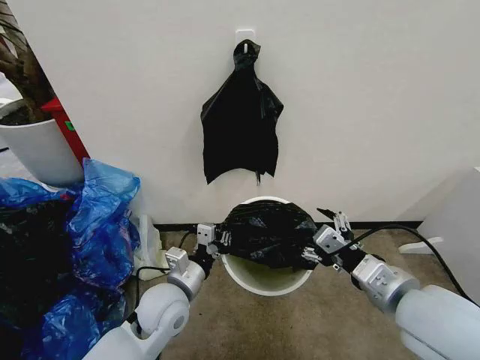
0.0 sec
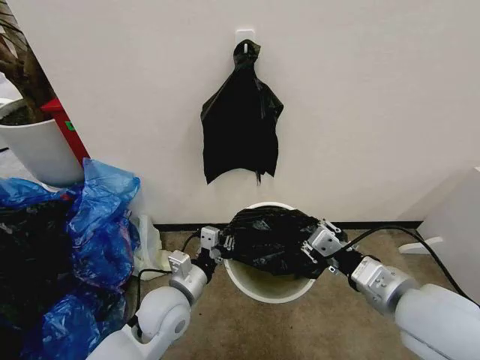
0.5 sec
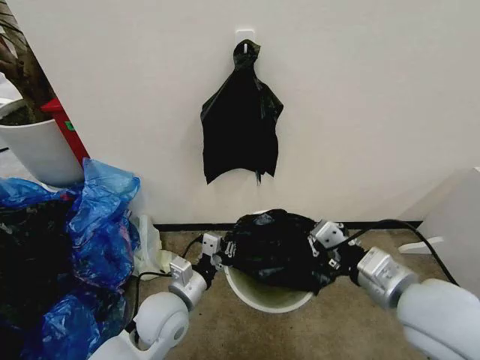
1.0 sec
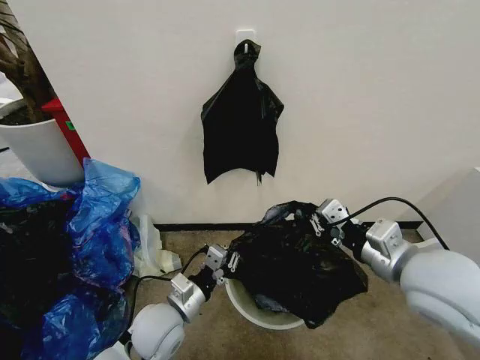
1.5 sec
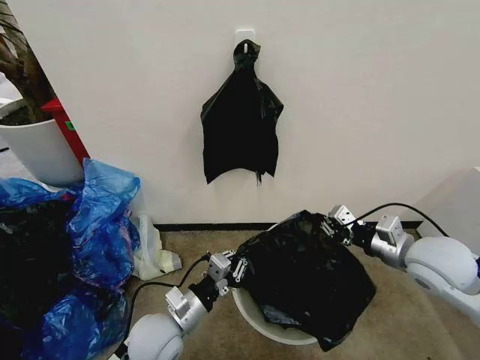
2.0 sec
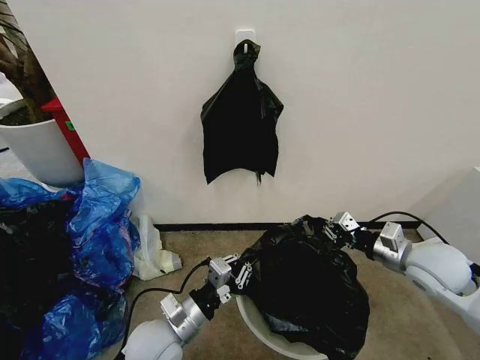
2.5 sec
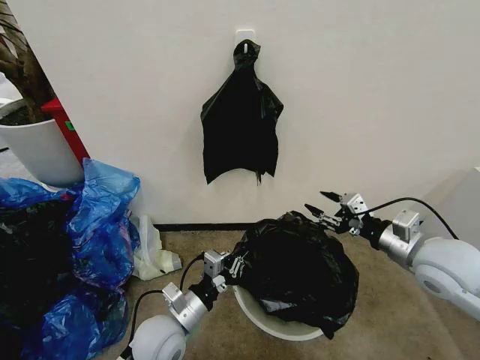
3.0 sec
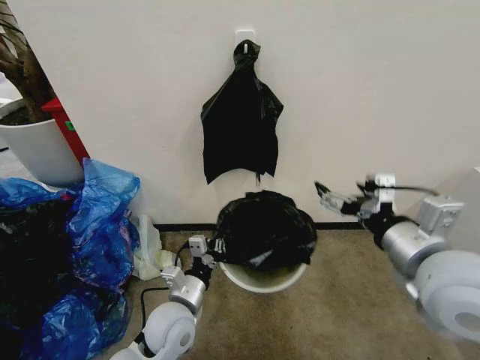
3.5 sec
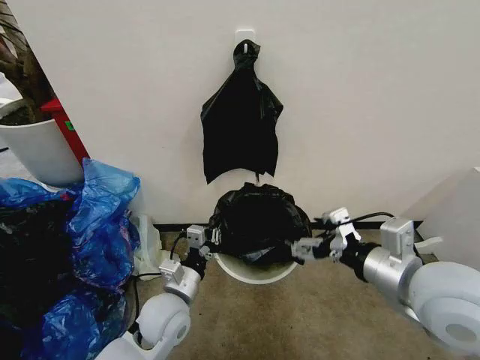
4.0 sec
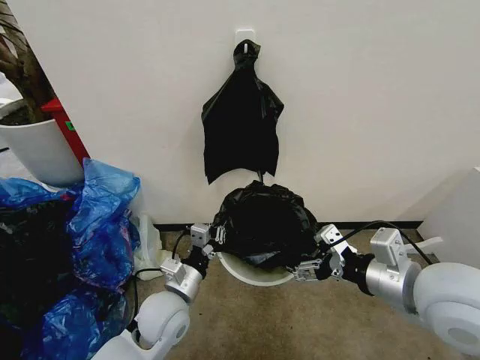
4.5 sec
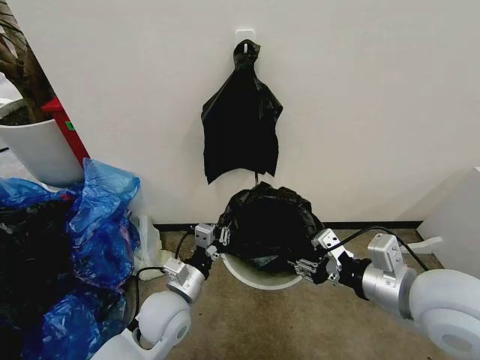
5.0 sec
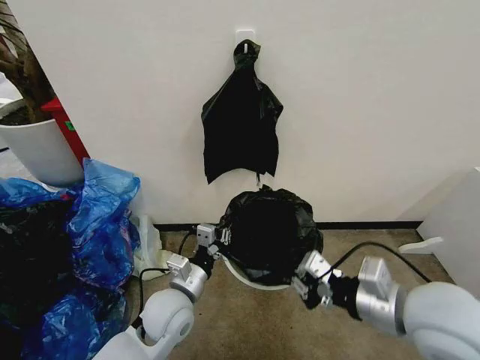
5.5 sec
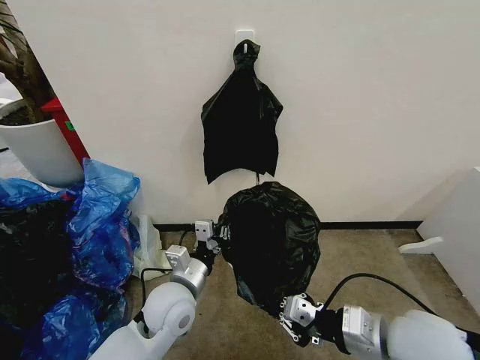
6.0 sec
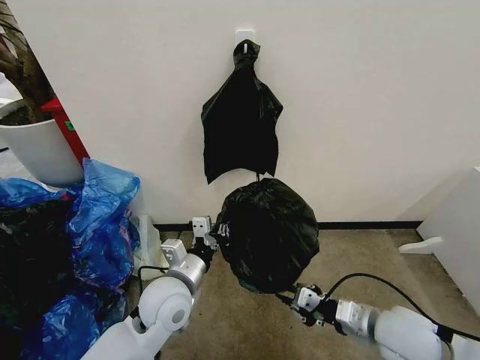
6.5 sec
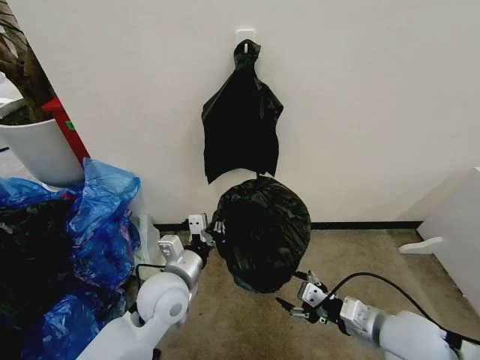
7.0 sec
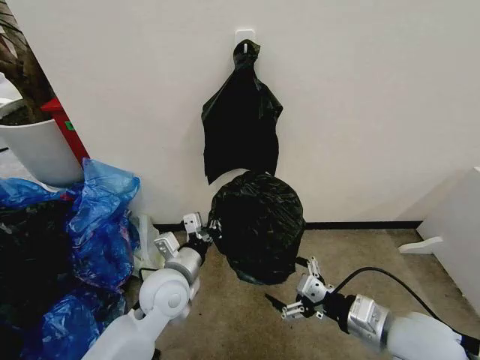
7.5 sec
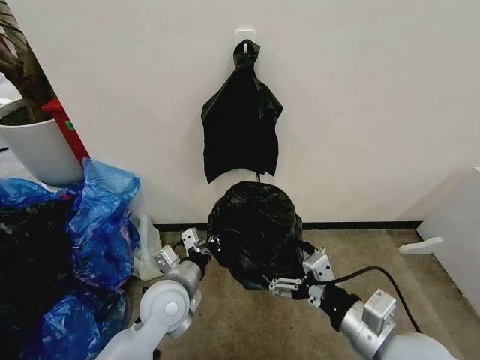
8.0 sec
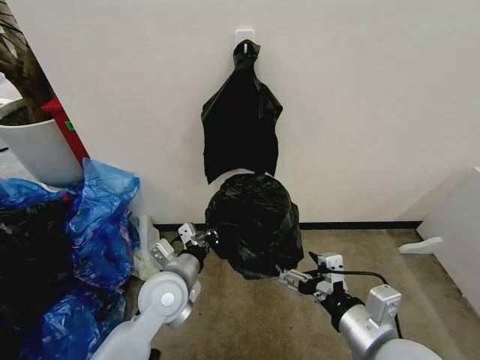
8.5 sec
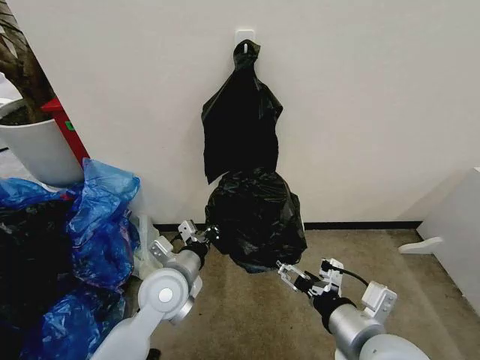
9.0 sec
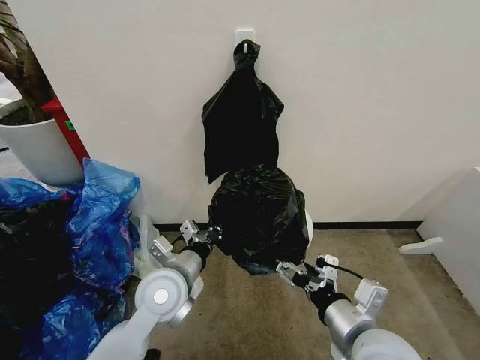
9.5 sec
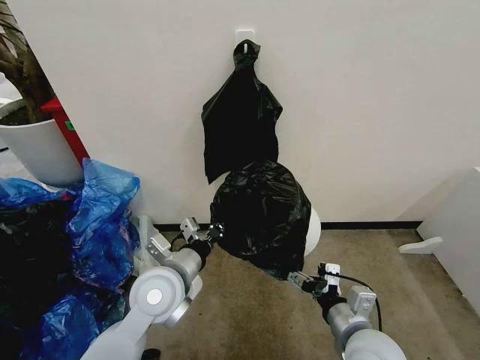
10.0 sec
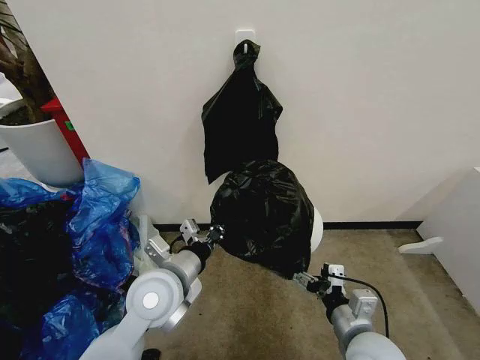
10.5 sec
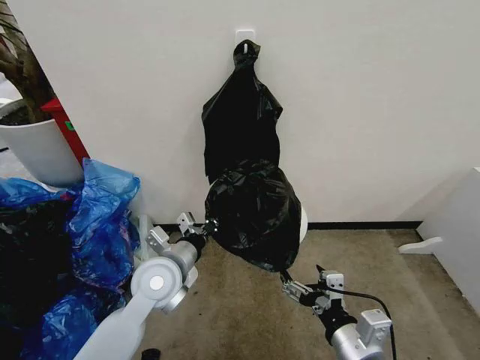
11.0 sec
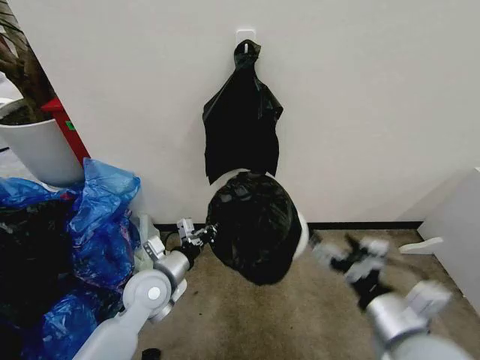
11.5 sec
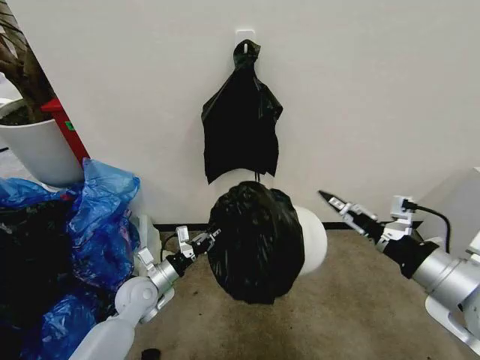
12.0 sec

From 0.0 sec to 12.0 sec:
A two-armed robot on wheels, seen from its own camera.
Task of the whole recording: Place the garbage bag over the trash bin.
From 0.0 sec to 2.0 sec: The right gripper travels forward and to the right by approximately 15 cm, and closes up; the left gripper shifts by roughly 5 cm.
From 2.0 sec to 4.0 sec: The right gripper goes some 15 cm backward, to the left and upward, and opens.
From 4.0 sec to 6.0 sec: The right gripper moves downward, about 10 cm, and closes up.
From 6.0 sec to 8.0 sec: The right gripper reaches approximately 10 cm downward, then returns, and opens its fingers.
From 8.0 sec to 10.0 sec: The right gripper heads downward, covering roughly 10 cm; the left gripper travels upward by roughly 5 cm.
From 10.0 sec to 12.0 sec: The right gripper is displaced upward and to the right by some 20 cm; the left gripper goes some 20 cm downward and to the left.

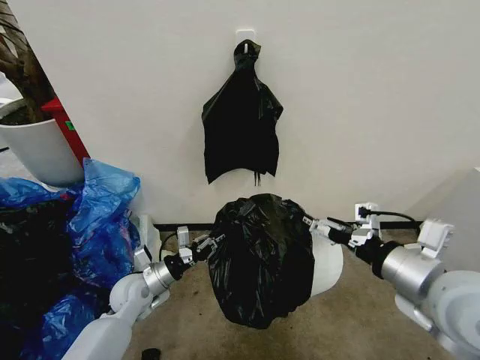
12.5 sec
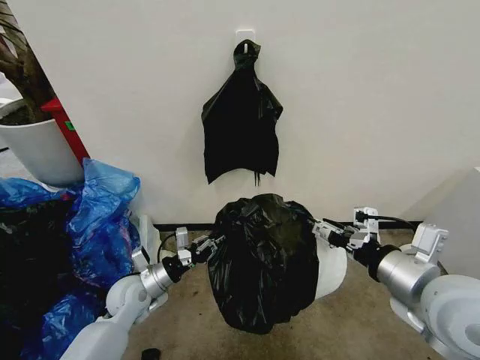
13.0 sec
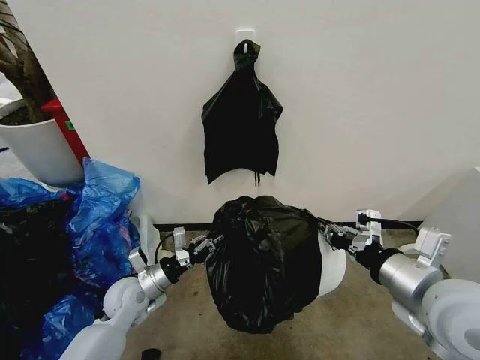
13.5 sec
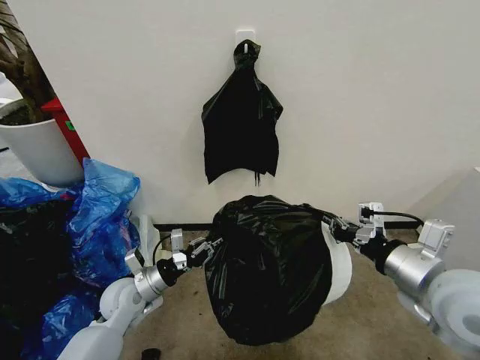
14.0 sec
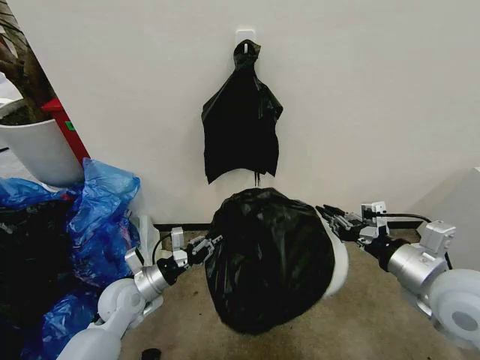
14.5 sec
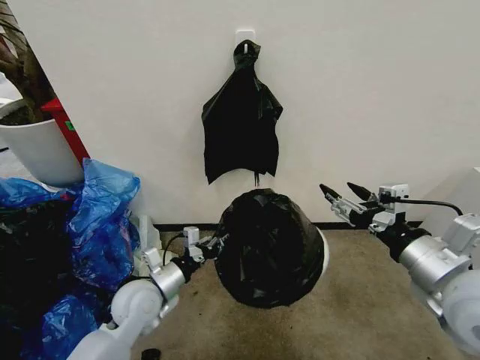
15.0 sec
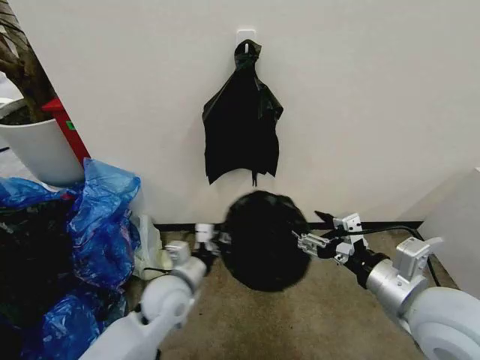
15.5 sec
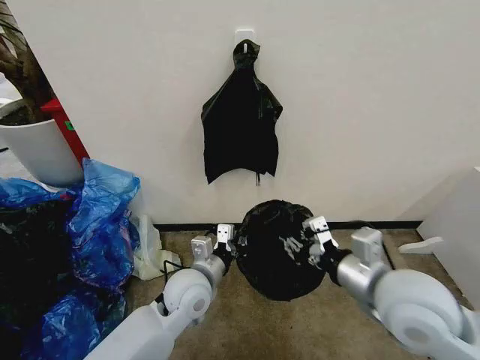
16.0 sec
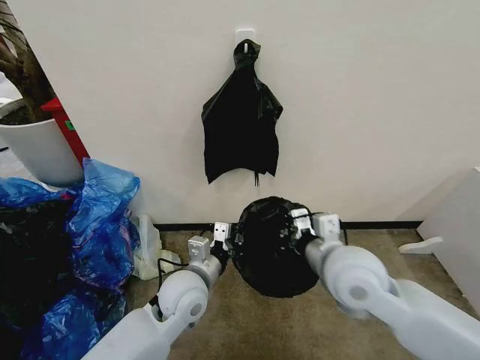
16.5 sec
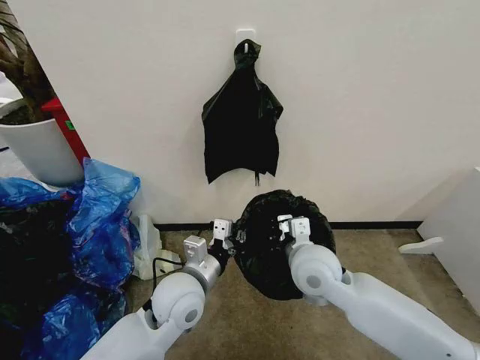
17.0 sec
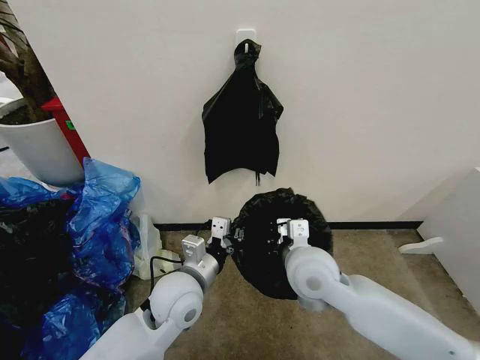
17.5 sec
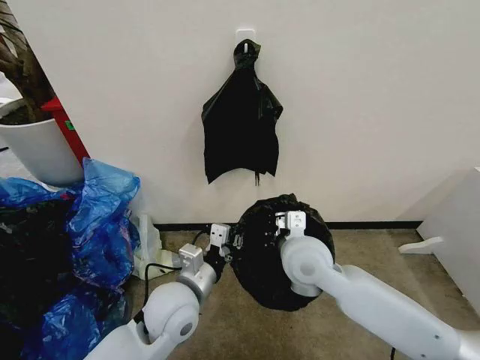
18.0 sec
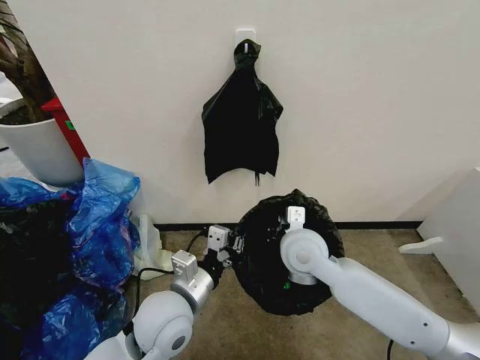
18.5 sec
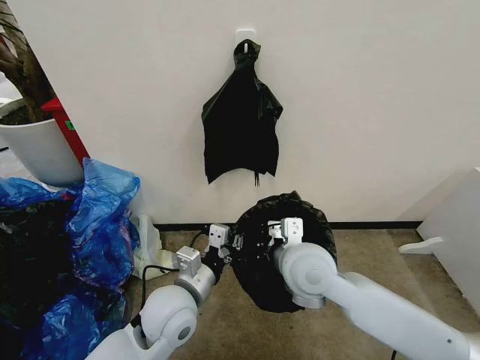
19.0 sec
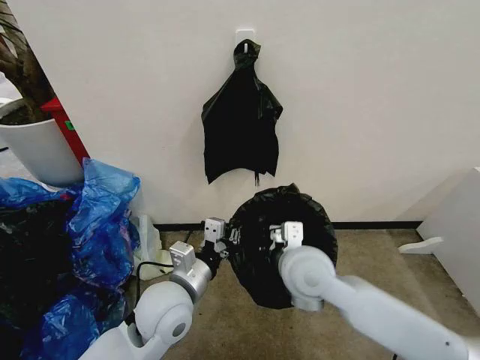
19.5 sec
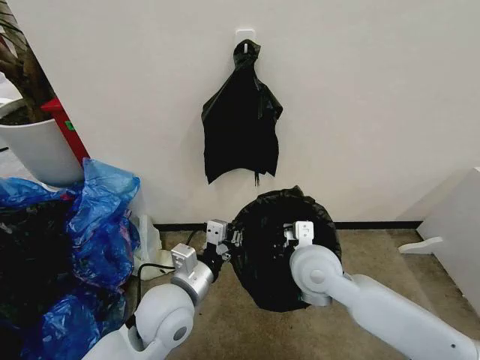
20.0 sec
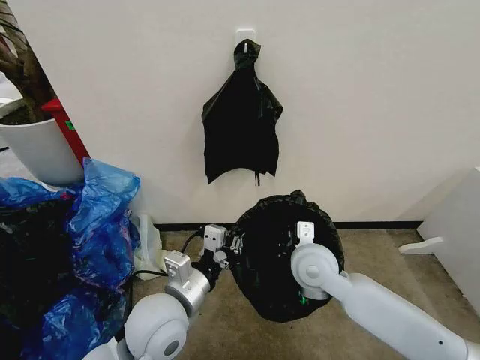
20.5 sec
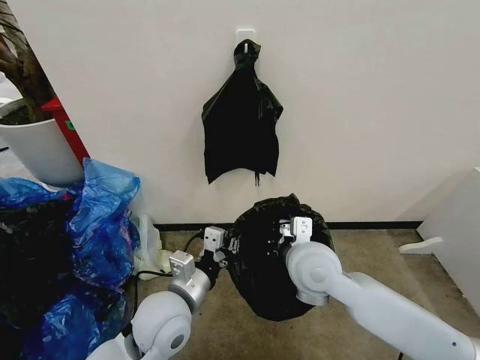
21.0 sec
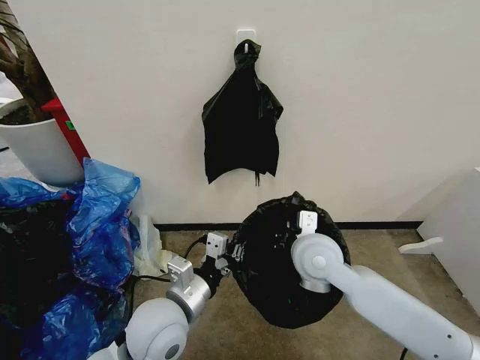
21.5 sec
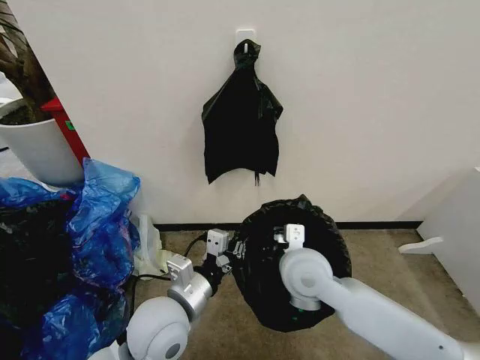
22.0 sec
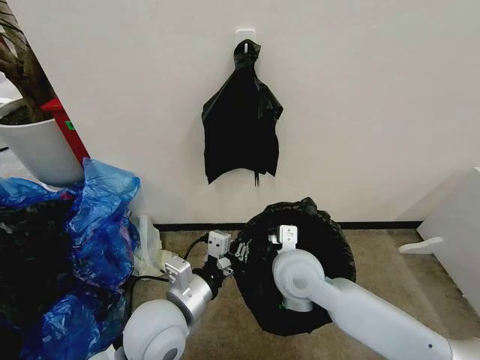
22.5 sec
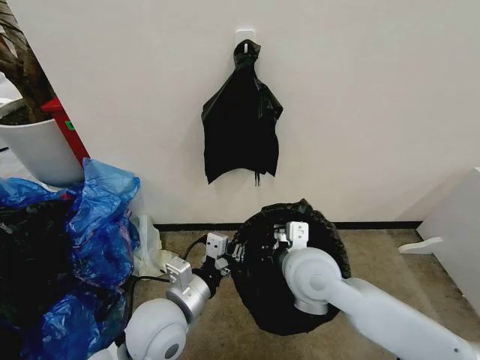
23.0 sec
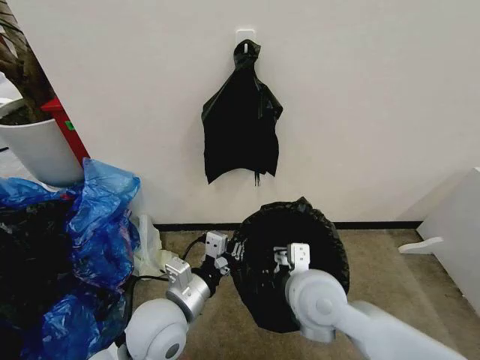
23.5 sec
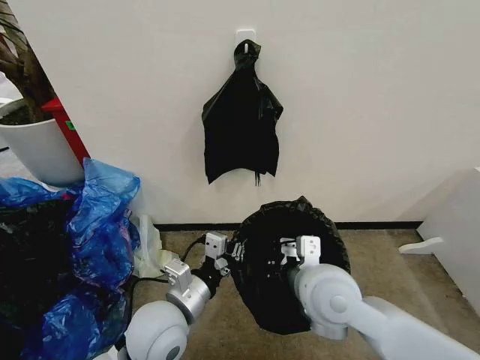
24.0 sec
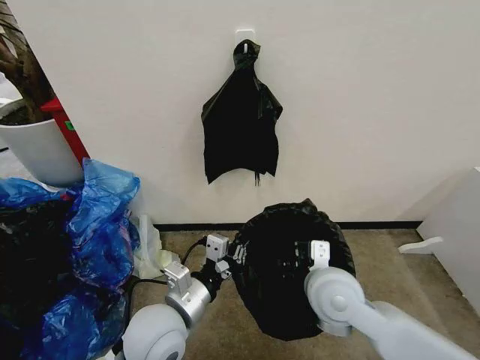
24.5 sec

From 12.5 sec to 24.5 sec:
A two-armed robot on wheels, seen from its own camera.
Task of the whole recording: Place the garbage bag over the trash bin.
From 12.5 sec to 14.5 sec: The right gripper moves about 5 cm, and closes its fingers.
From 14.5 sec to 16.5 sec: The right gripper moves to the left, some 15 cm, and opens, then closes once more. The left gripper shifts roughly 15 cm to the right and upward.
From 16.5 sec to 18.5 sec: The left gripper goes approximately 5 cm backward, while the right gripper heads forward and to the left, covering roughly 10 cm.
From 20.5 sec to 22.5 sec: The right gripper moves roughly 5 cm.
From 22.5 sec to 24.5 sec: The right gripper travels to the right by about 5 cm.

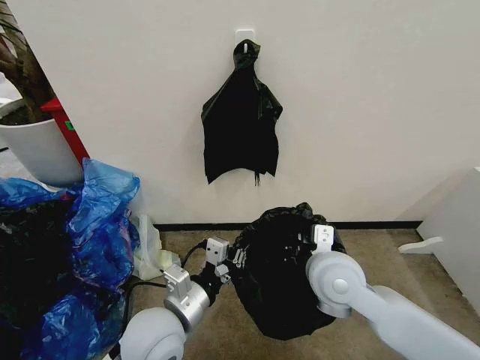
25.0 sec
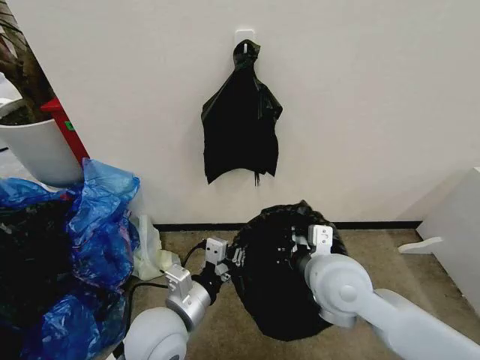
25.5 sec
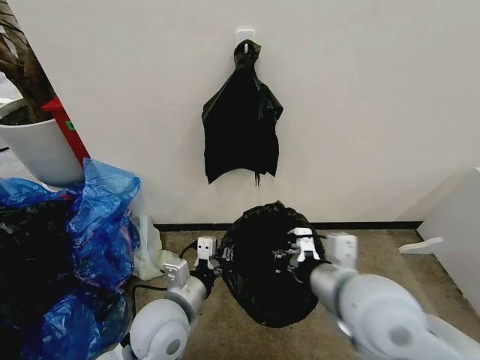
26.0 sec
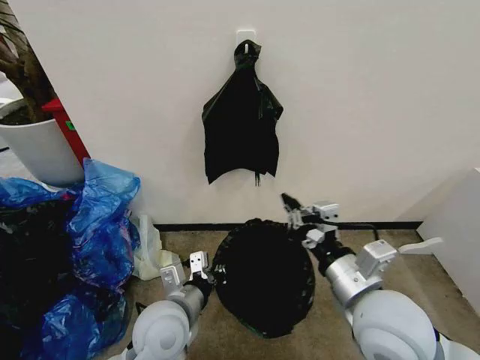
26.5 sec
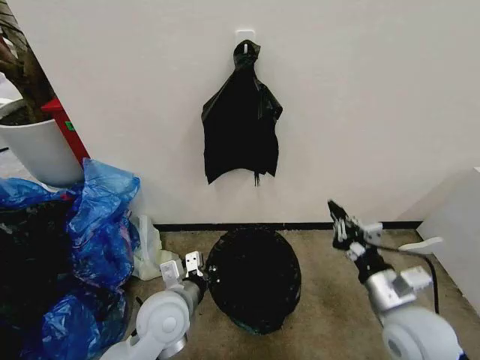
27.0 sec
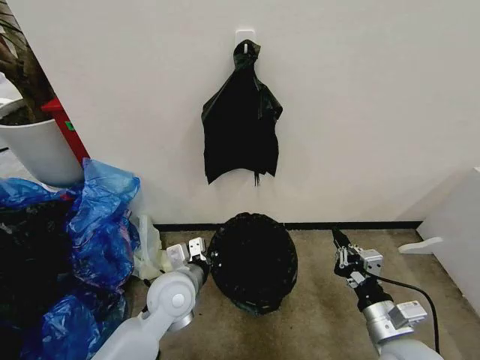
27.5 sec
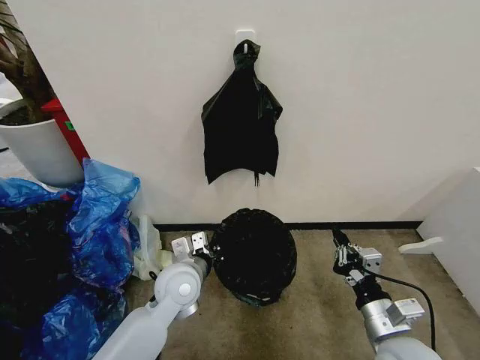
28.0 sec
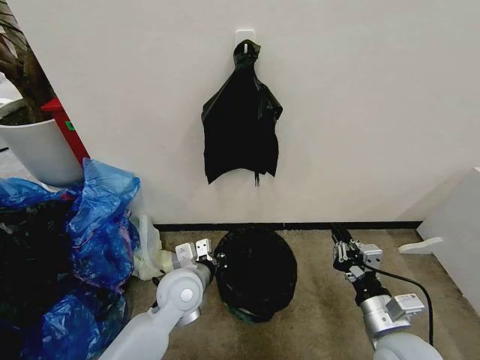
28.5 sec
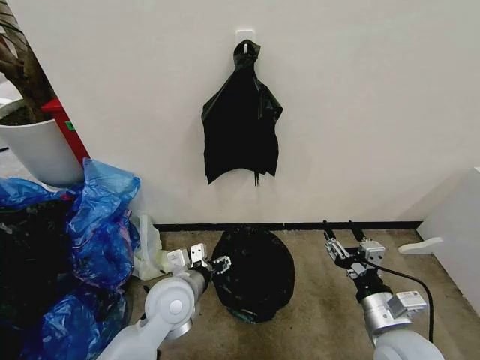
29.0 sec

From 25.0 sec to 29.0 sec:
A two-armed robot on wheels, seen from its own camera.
Task of the whole recording: Place the garbage bag over the trash bin.
From 25.0 sec to 27.0 sec: The right gripper heads to the right and backward, covering some 15 cm. The left gripper moves about 5 cm.
From 27.0 sec to 29.0 sec: The left gripper opens up; the right gripper opens.
